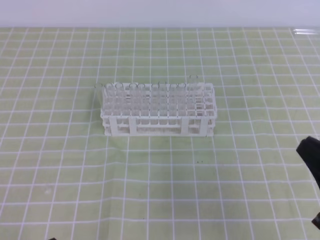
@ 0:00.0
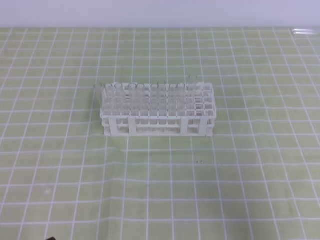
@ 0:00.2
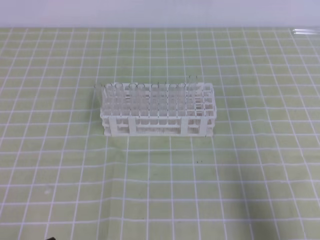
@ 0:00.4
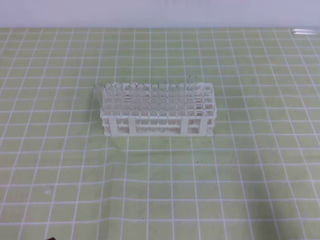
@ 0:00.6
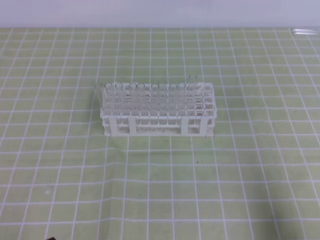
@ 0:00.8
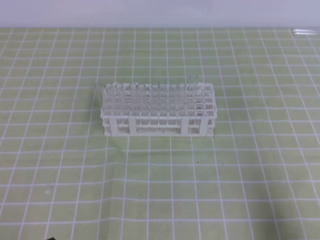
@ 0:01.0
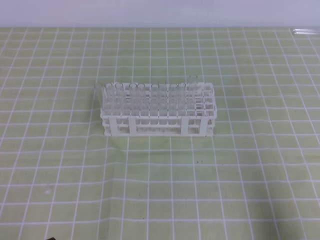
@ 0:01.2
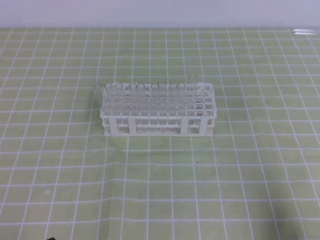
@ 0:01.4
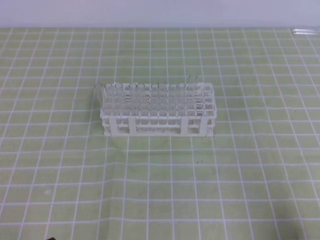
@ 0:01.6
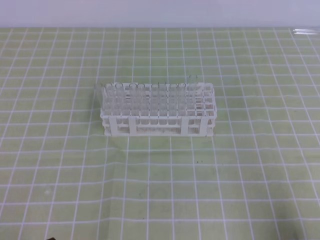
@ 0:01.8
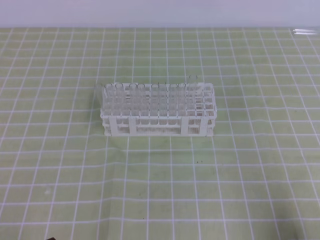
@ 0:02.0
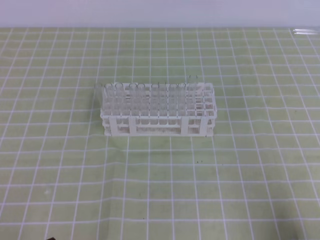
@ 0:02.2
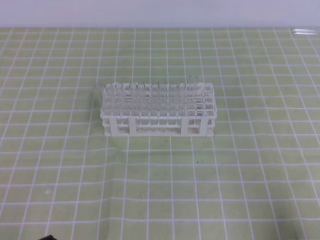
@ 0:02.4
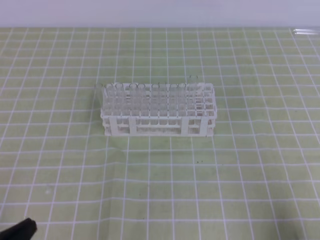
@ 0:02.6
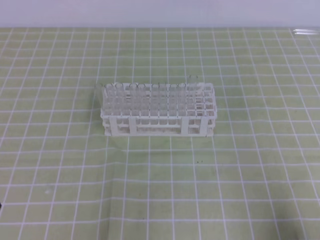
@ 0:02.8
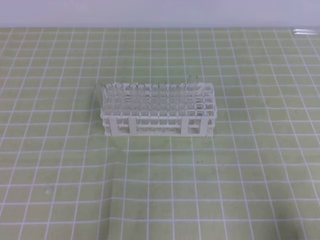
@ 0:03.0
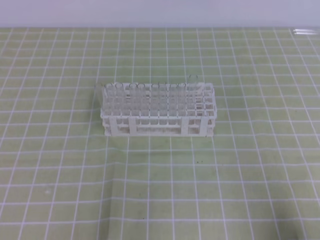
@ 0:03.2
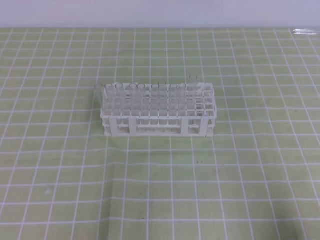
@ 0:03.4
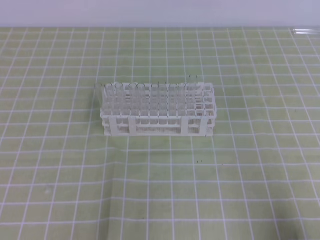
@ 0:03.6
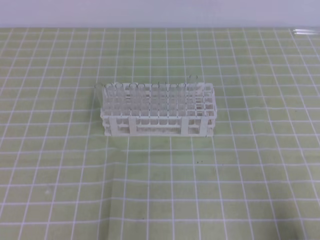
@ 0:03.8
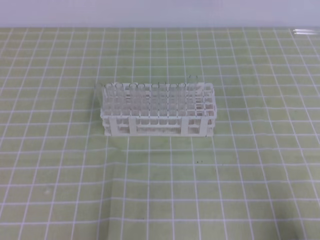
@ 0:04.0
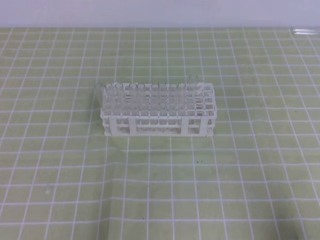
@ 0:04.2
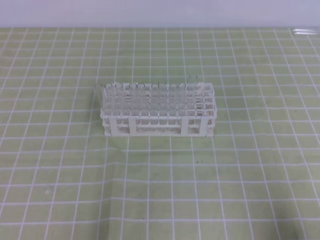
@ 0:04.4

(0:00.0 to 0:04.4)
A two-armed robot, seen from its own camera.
0:00.0 - 0:01.4: The right gripper shifts approximately 10 cm downward, to the right and backward.
